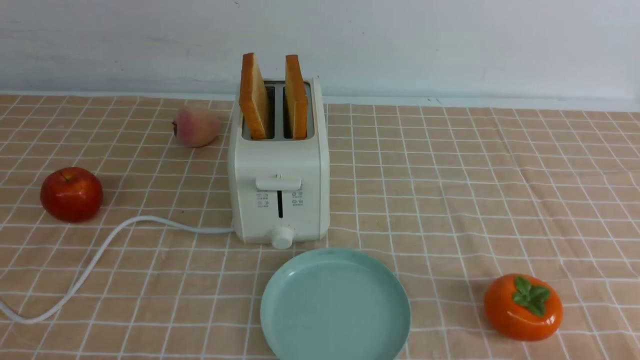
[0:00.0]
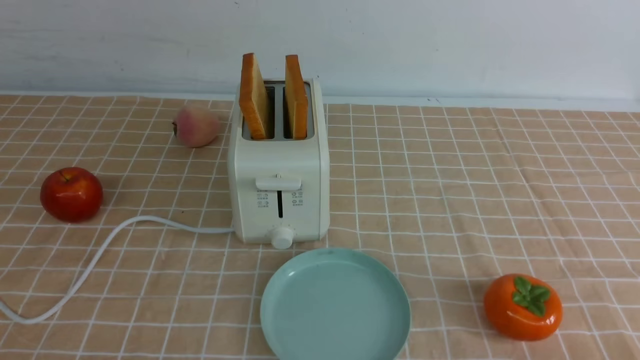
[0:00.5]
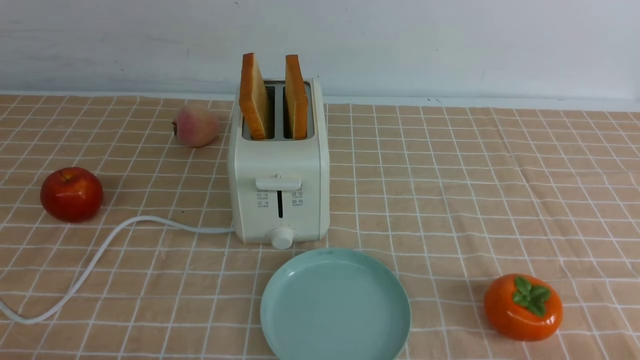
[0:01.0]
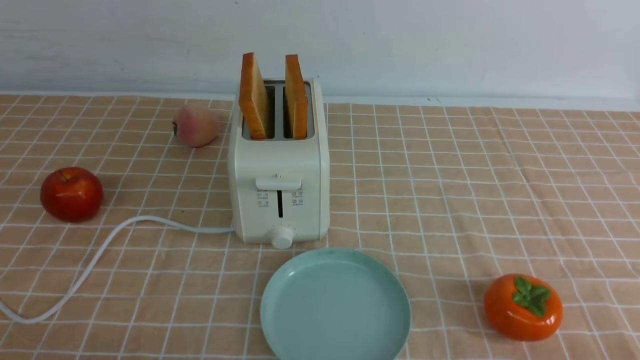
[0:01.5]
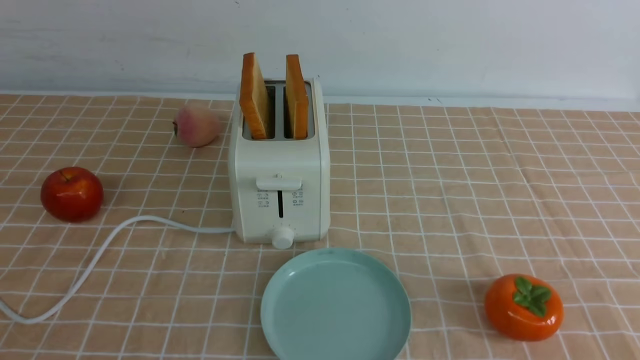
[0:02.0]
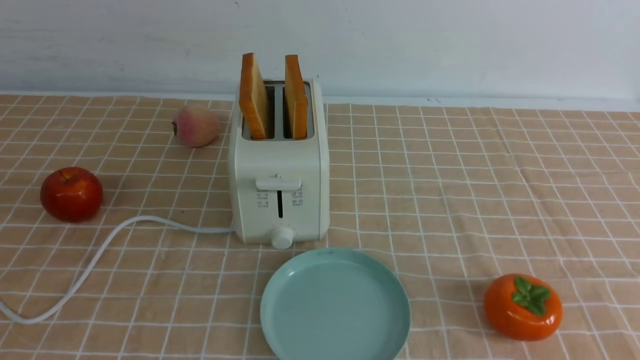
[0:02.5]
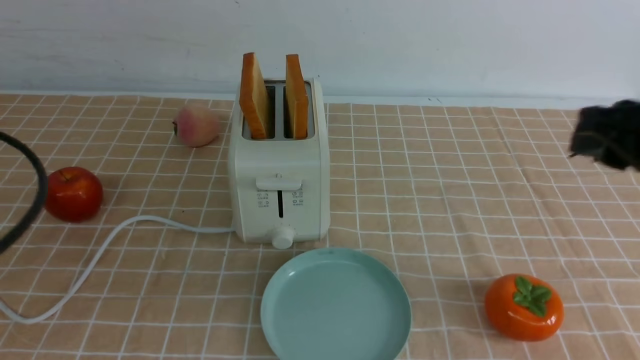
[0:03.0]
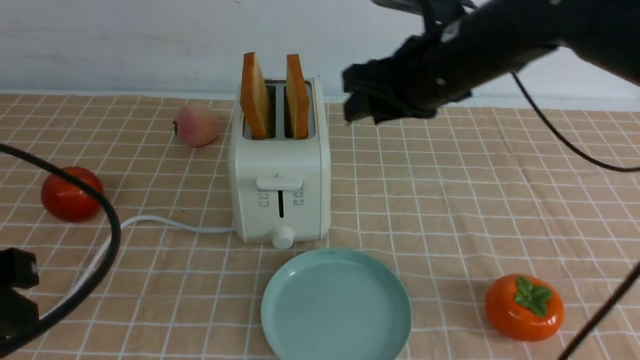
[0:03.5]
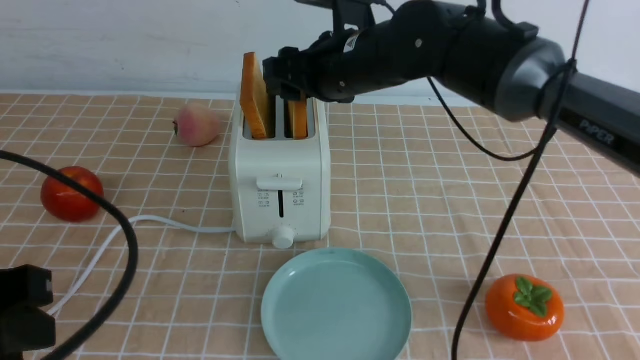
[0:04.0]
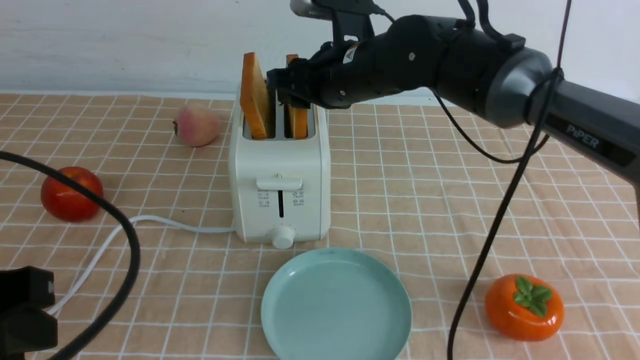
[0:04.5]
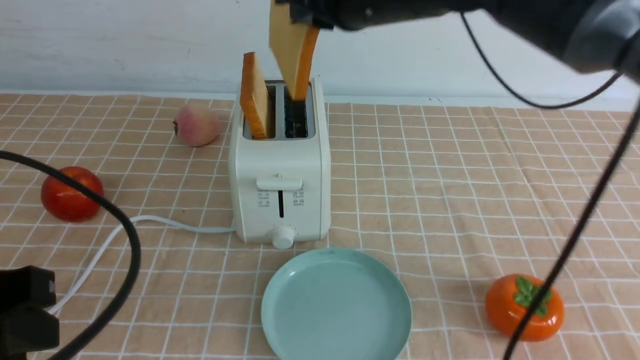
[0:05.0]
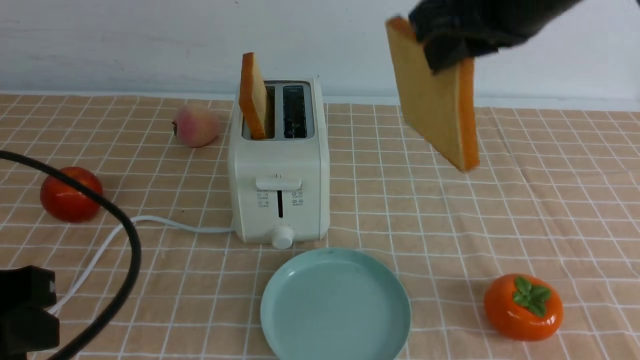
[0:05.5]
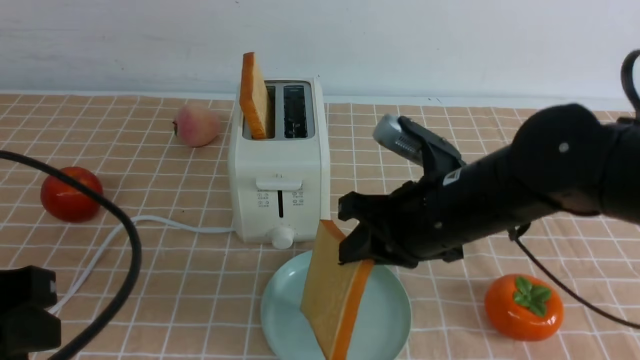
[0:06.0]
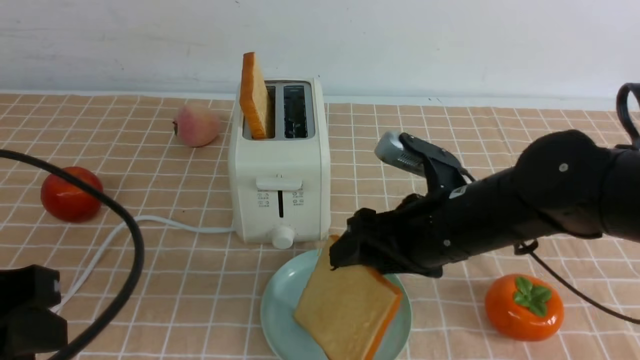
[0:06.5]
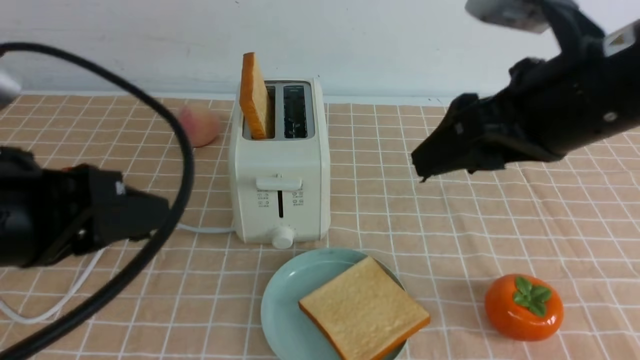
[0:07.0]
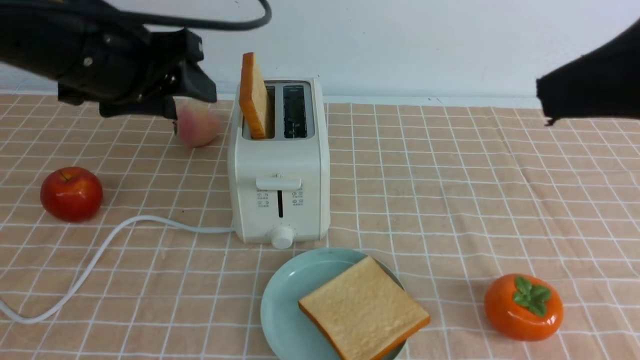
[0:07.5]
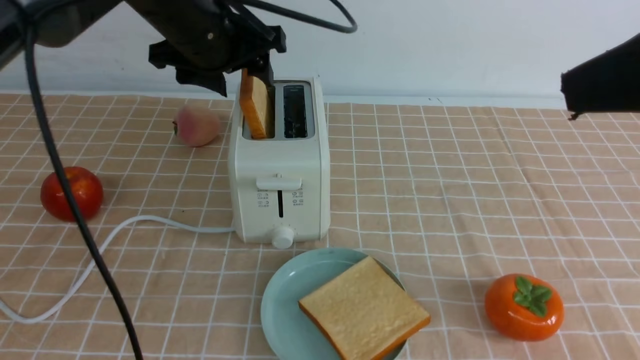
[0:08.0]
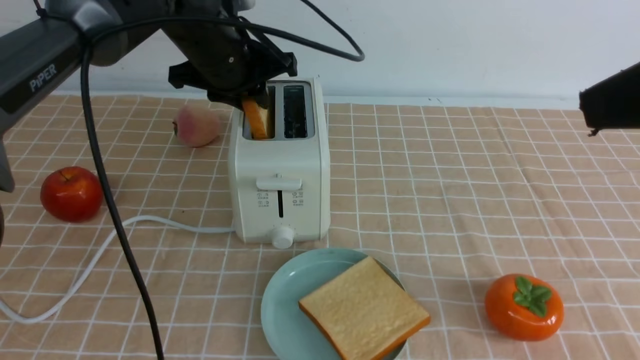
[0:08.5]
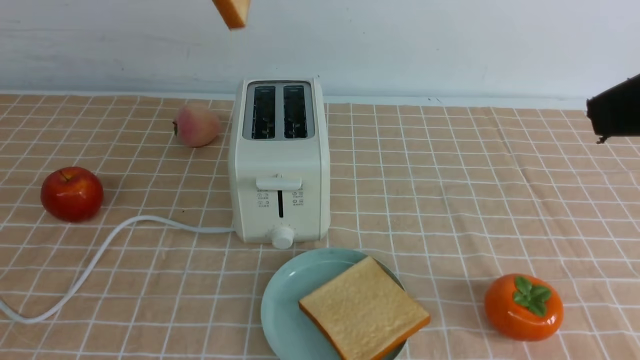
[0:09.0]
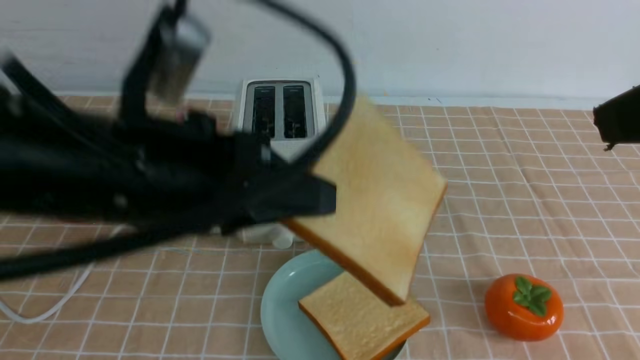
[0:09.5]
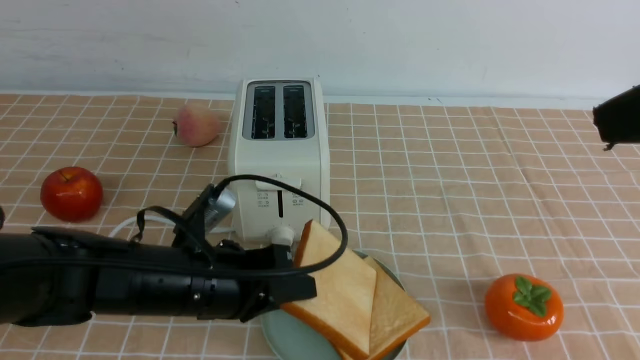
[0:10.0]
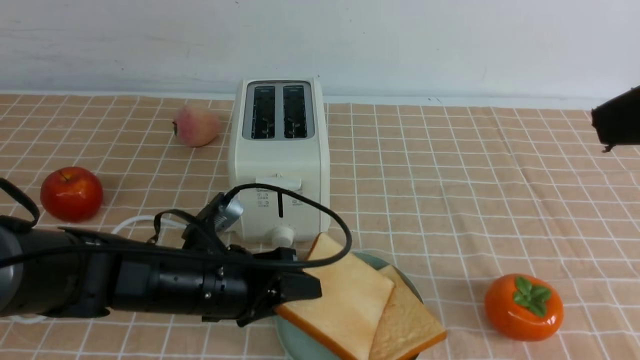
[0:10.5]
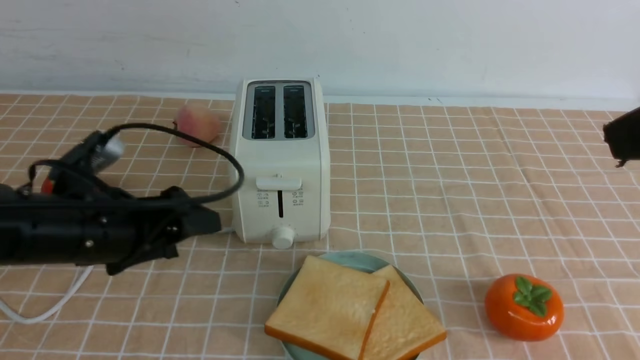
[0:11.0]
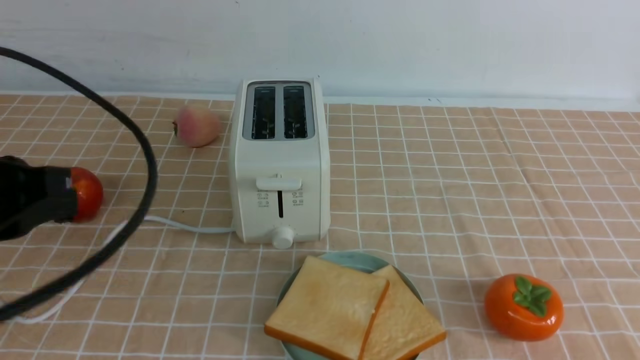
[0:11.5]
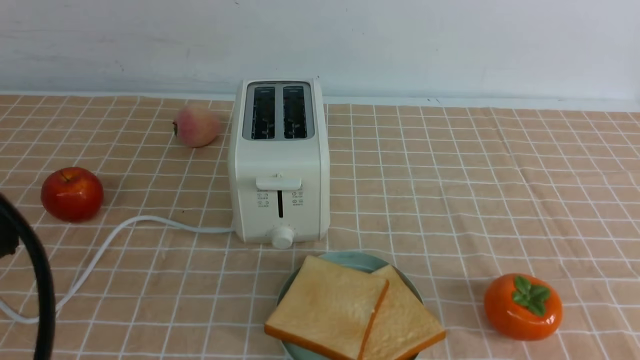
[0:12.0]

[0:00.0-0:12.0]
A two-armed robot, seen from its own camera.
Task of the whole recording: take toasted bread from bread machine on light coffee tablecloth place on plate.
Step, 0:00.0 to 0:04.5: use the right arm to take out a slice of bread.
Step, 0:05.0 to 0:06.5: use the right arm to put a slice of bread into the plate.
Step, 0:07.0 to 0:08.5: use the left arm to take out a slice of bread.
Step, 0:09.0 to 0:10.5: use the left arm to put a slice of bread into the empty plate.
0:02.0 to 0:04.0: The right gripper heads forward and to the left, covering some 50 cm, and opens, while the left gripper travels forward by roughly 10 cm.
0:04.0 to 0:06.0: The right gripper moves backward, to the right and downward, about 15 cm, and closes its fingers.
0:06.0 to 0:08.0: The right gripper is displaced upward, backward and to the right by roughly 25 cm, and opens its fingers. Meanwhile the left gripper travels forward by about 30 cm, and opens.
0:08.0 to 0:10.0: The left gripper travels backward and downward by approximately 25 cm, and closes up.
0:10.0 to 0:12.0: The right gripper travels downward, backward and to the right by about 15 cm, and closes. The left gripper travels upward, backward and to the left by some 25 cm, and opens, then closes again.

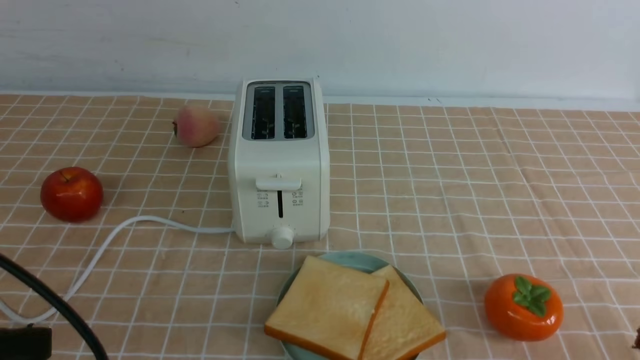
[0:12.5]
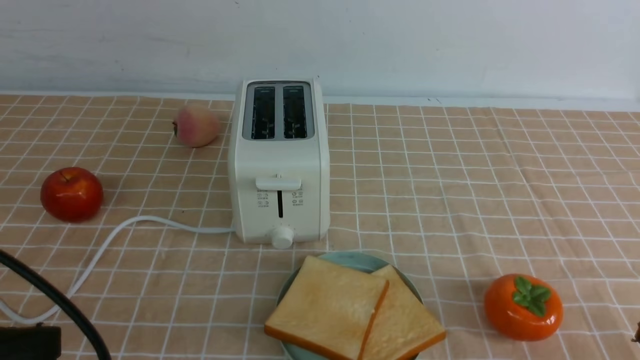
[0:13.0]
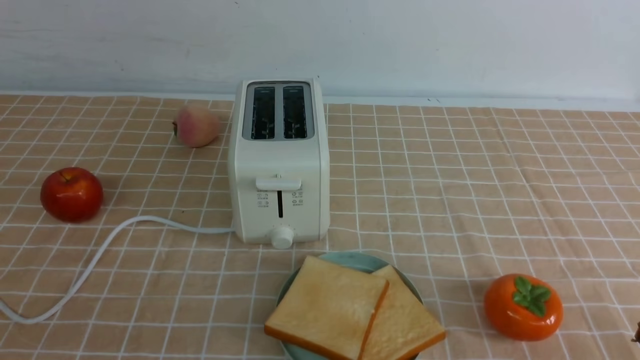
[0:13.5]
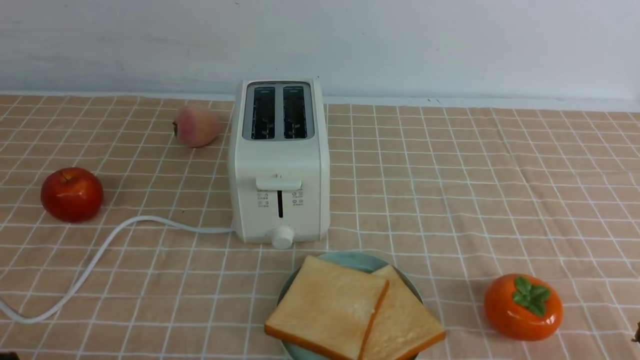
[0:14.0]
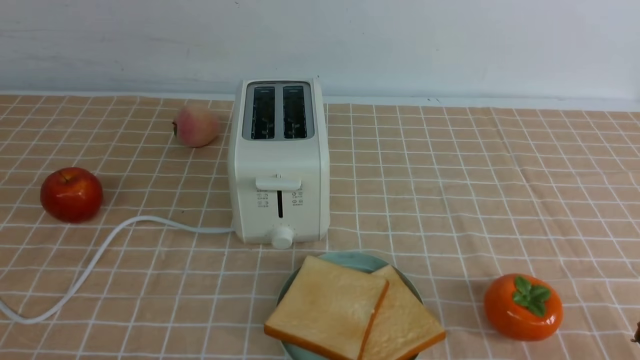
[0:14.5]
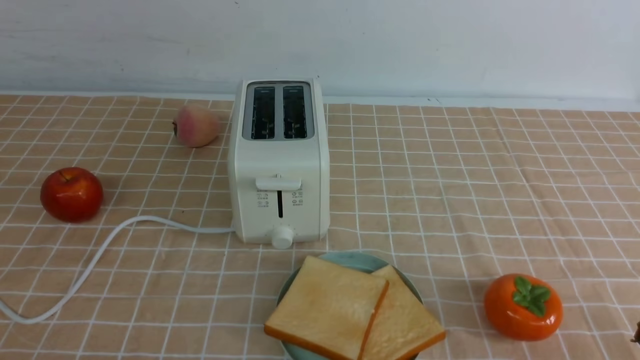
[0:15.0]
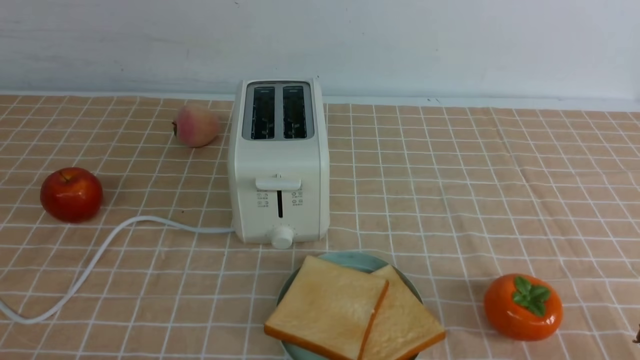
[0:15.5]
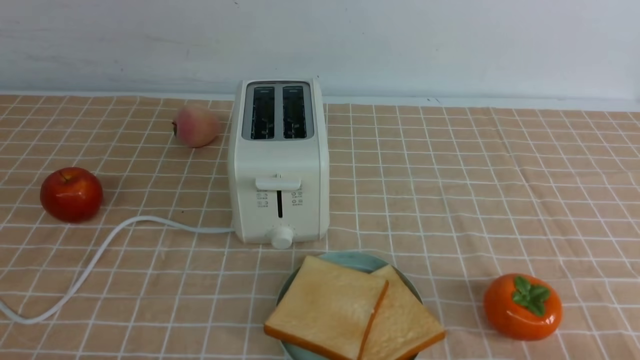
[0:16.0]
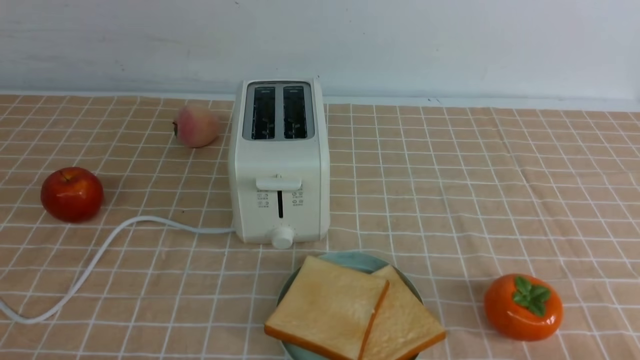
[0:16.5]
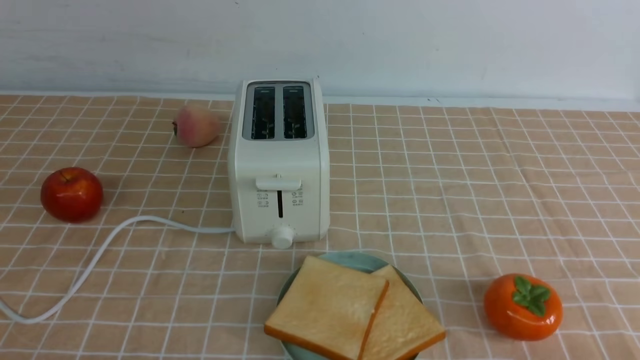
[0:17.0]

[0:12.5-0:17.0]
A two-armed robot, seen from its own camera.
Task of the whole recording: take toasted bread from bread machine on light coffee tablecloth place on plate.
0:12.5 to 0:14.5: The left gripper is displaced downward by approximately 15 cm.

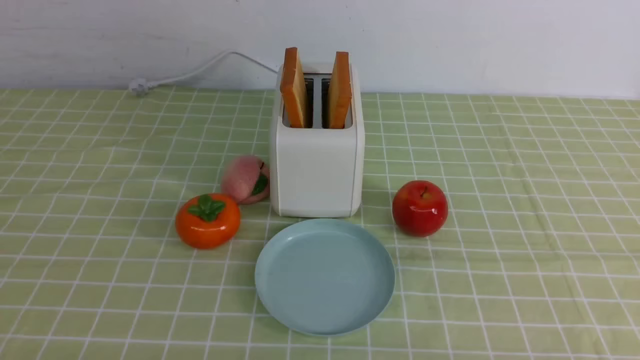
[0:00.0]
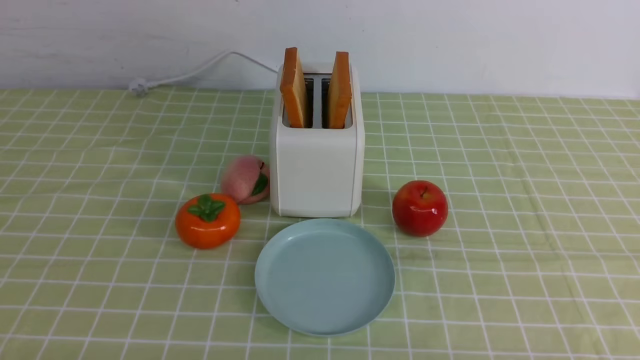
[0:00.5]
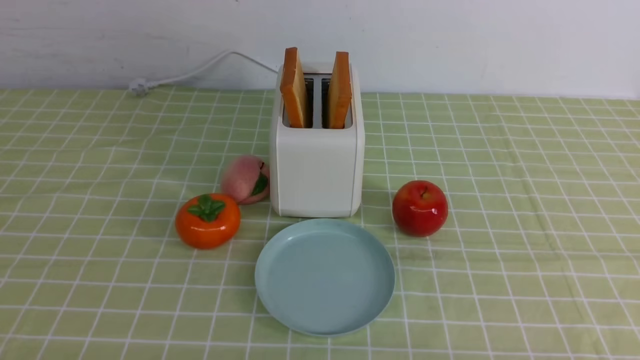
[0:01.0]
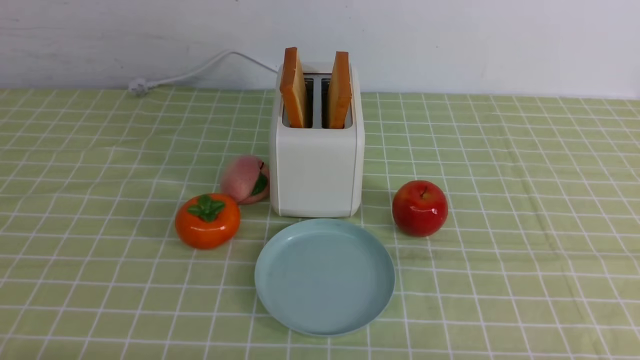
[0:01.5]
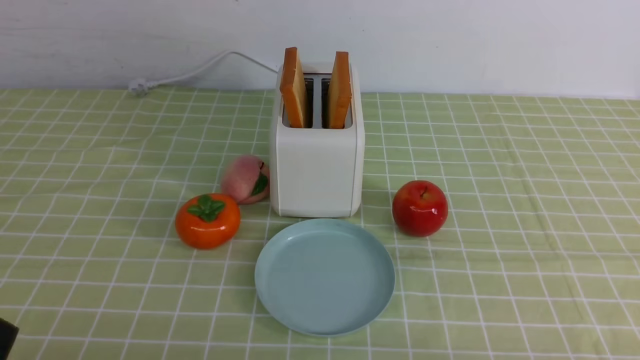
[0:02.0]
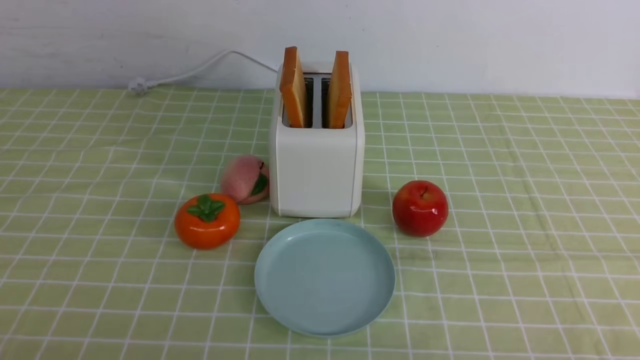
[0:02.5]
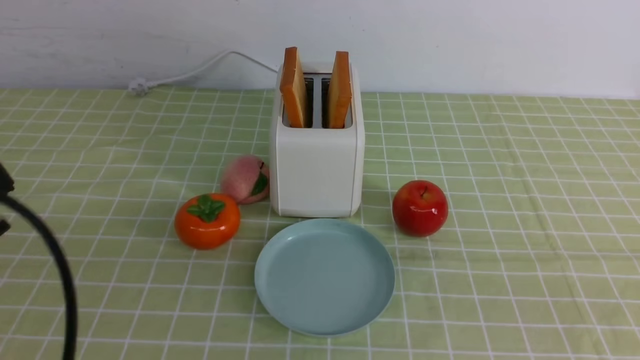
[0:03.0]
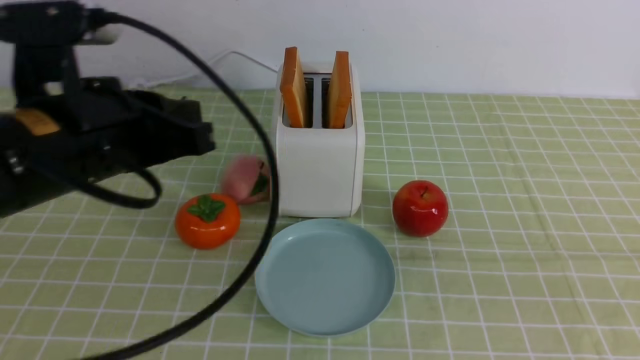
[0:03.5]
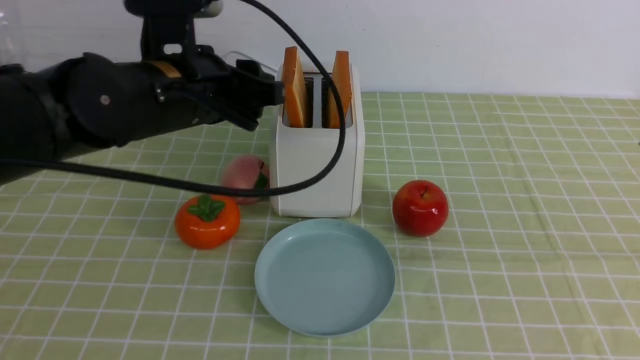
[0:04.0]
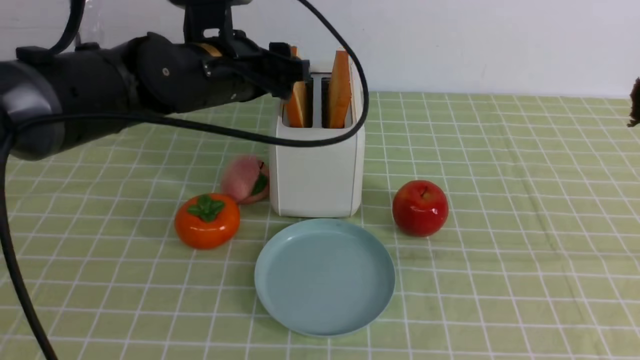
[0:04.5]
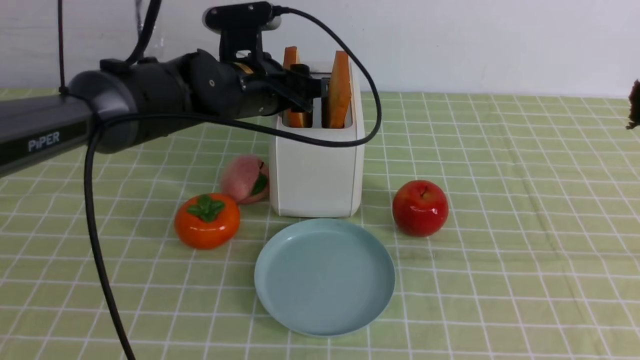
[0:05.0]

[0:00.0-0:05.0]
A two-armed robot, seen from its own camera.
Task of the whole recording: take toasted bread from bread machine on green coffee tablecloth place on plate.
0:02.5 to 0:05.0: The right gripper travels upward by some 20 cm, while the left gripper travels forward and to the right by roughly 40 cm, and opens up.
